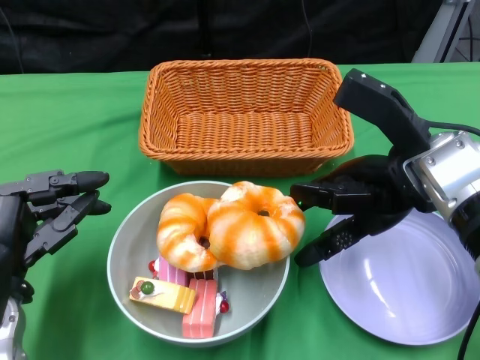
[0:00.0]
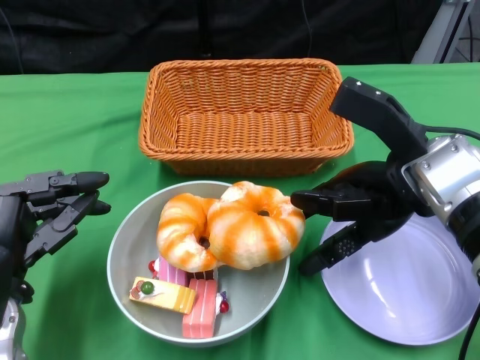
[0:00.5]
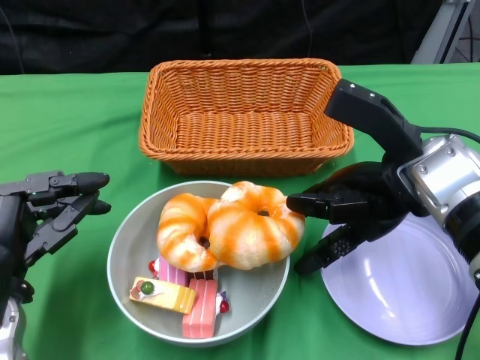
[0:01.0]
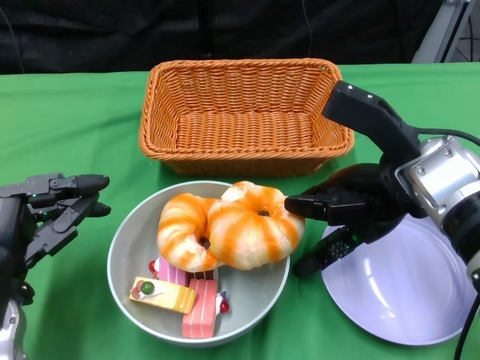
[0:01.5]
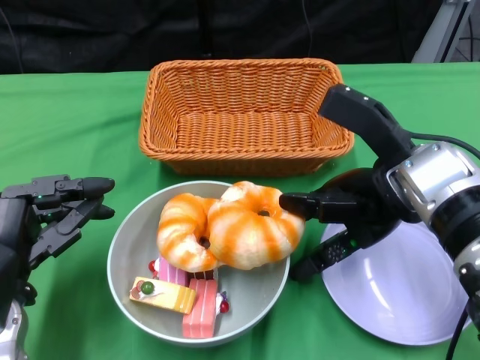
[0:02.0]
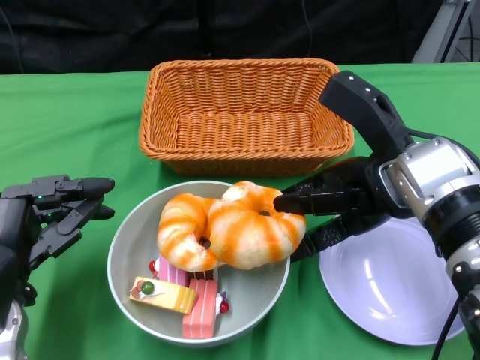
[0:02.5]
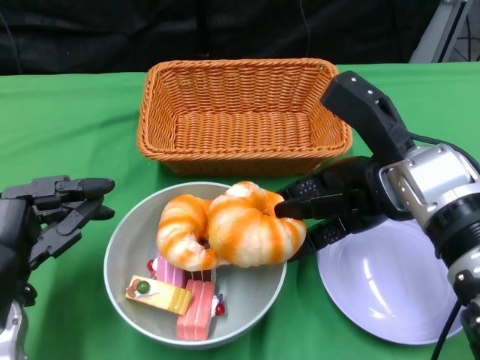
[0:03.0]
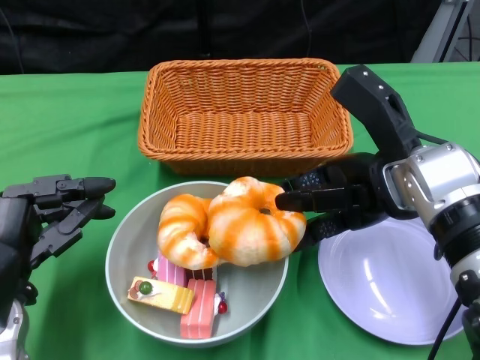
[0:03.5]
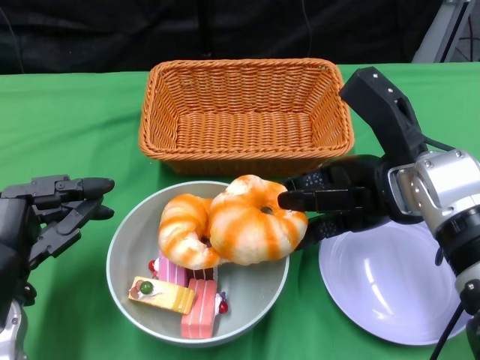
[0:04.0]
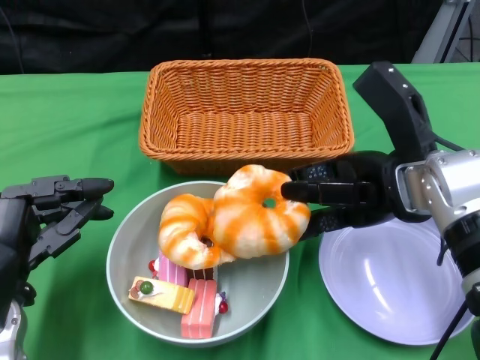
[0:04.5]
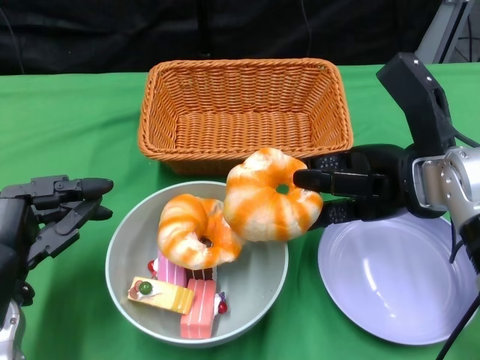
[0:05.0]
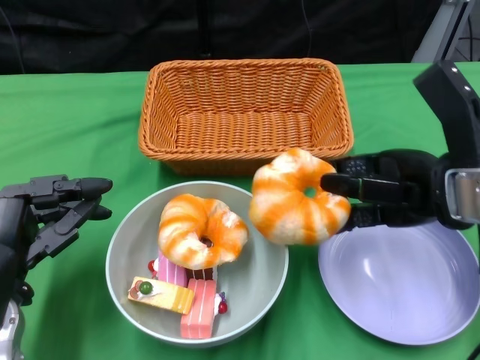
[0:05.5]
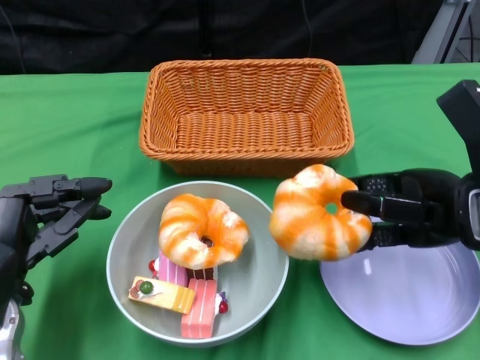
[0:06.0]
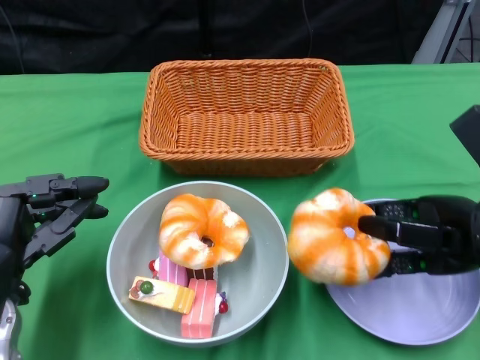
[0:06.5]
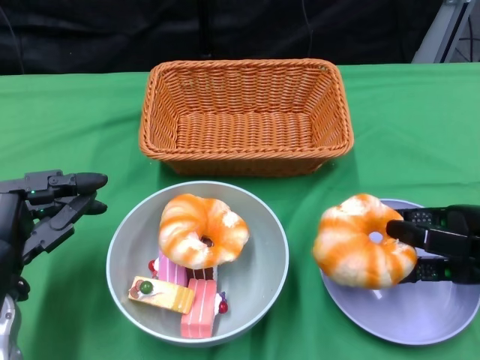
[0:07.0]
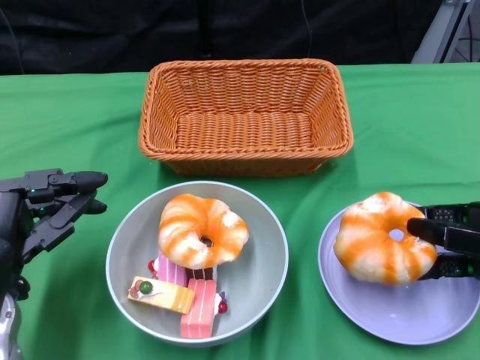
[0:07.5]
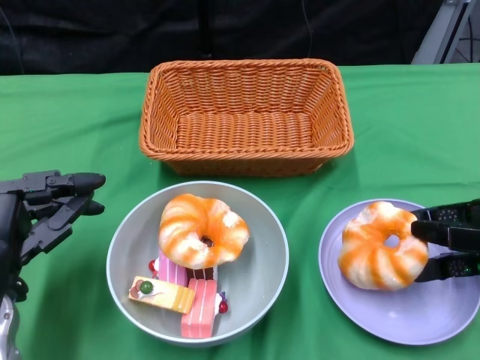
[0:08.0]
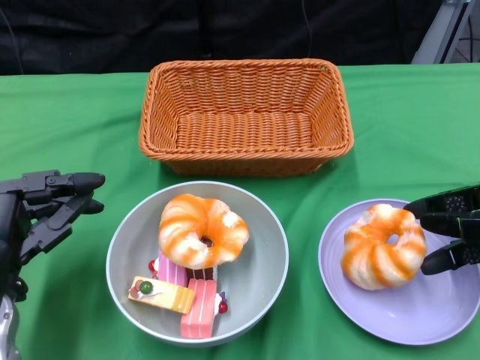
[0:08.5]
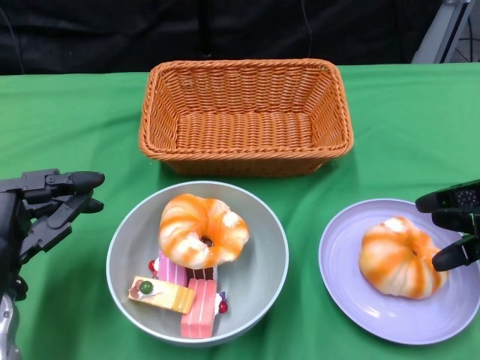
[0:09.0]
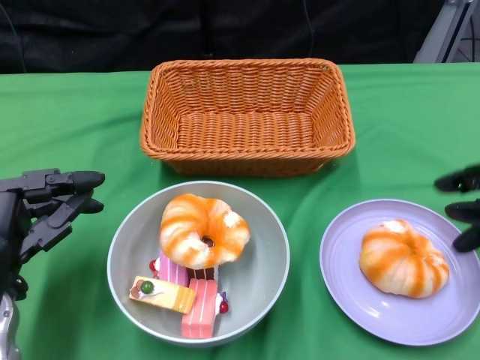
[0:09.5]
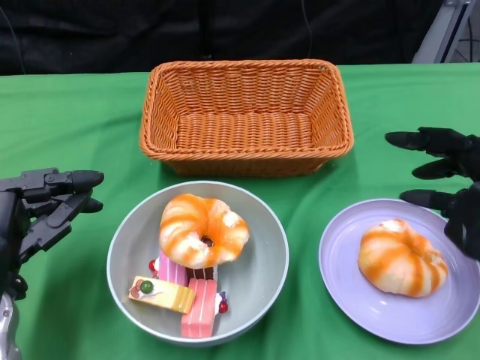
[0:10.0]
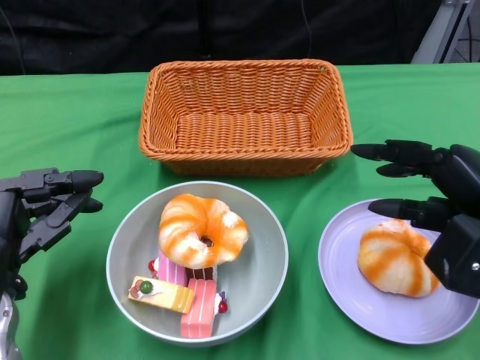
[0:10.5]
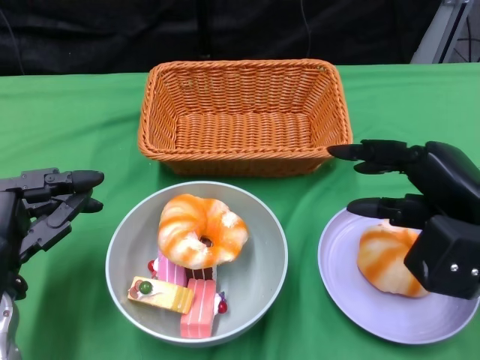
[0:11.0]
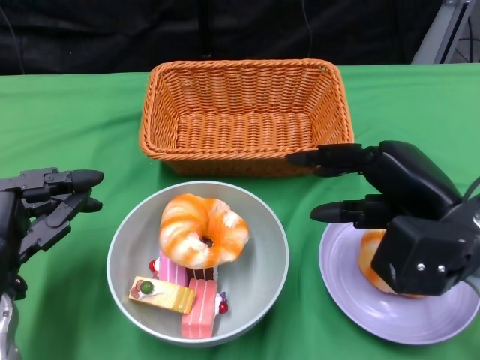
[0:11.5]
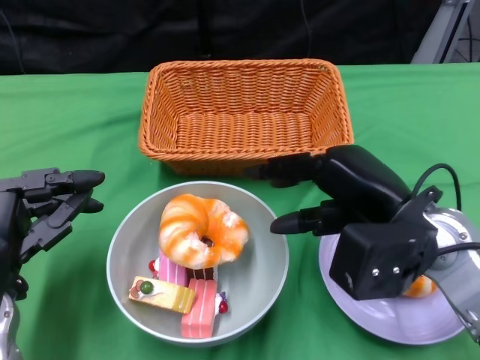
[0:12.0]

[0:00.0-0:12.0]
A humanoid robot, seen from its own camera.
0:00.0 to 0:02.0: The hands stay close to where they were, moving slightly.
0:02.0 to 0:04.0: The hands stay close to where they were, moving slightly.
0:04.0 to 0:06.0: The right hand travels to the right by about 5 cm.
0:06.0 to 0:08.0: The right hand moves to the right, some 5 cm.
0:08.0 to 0:10.0: The right hand changes place by some 5 cm.
0:10.0 to 0:12.0: The right hand goes about 10 cm to the left.

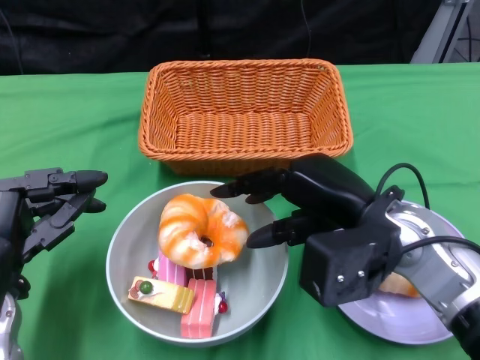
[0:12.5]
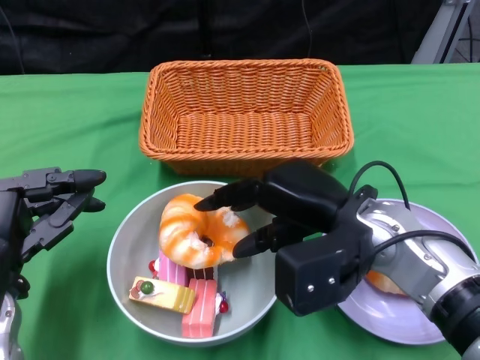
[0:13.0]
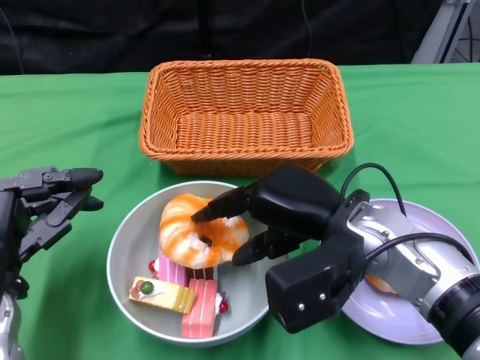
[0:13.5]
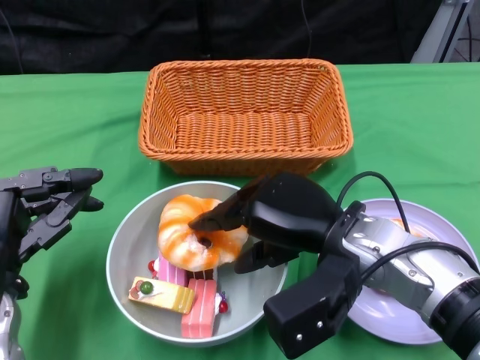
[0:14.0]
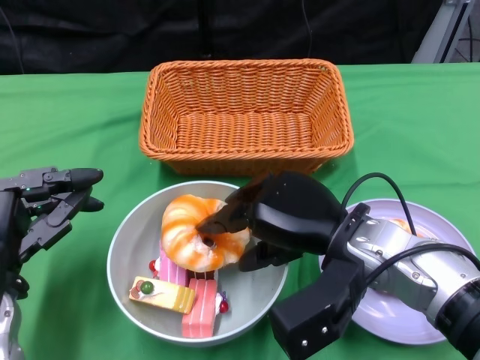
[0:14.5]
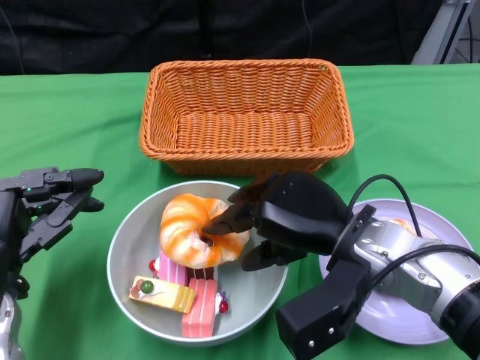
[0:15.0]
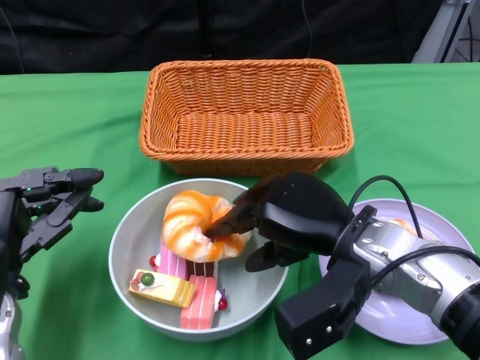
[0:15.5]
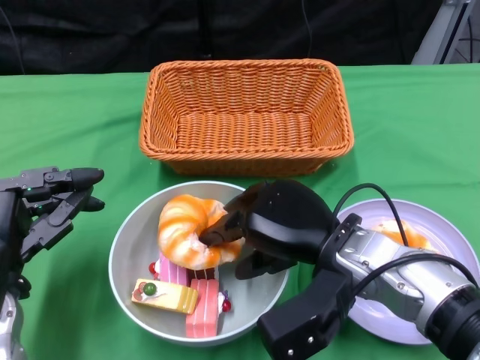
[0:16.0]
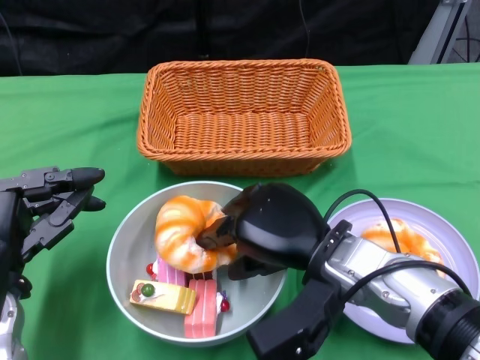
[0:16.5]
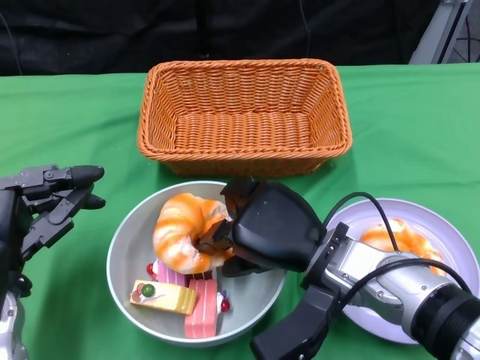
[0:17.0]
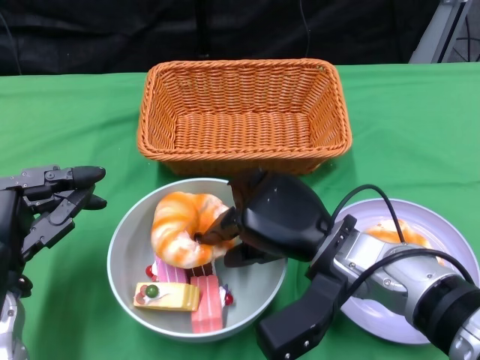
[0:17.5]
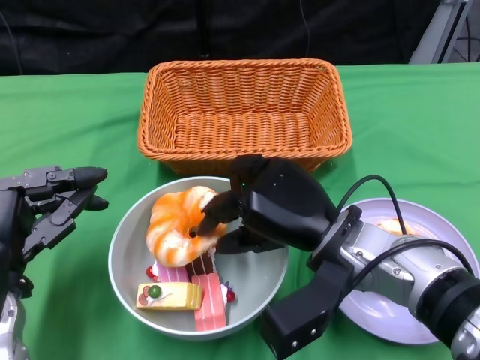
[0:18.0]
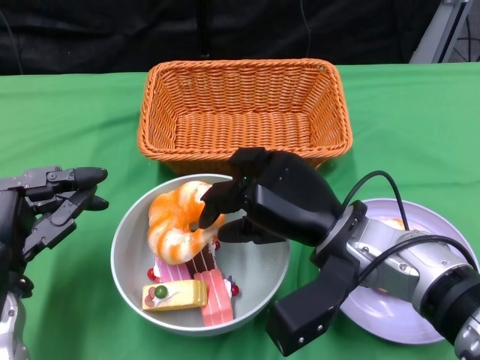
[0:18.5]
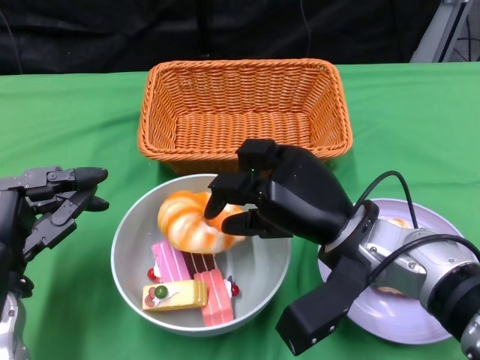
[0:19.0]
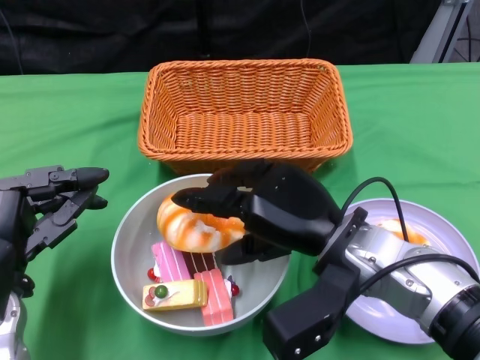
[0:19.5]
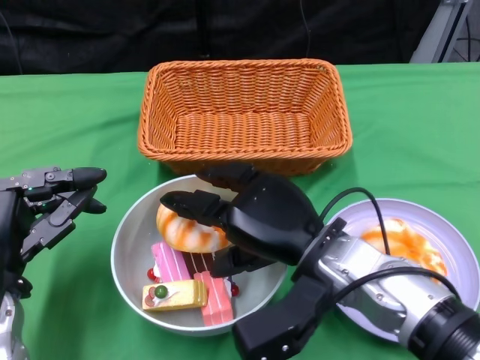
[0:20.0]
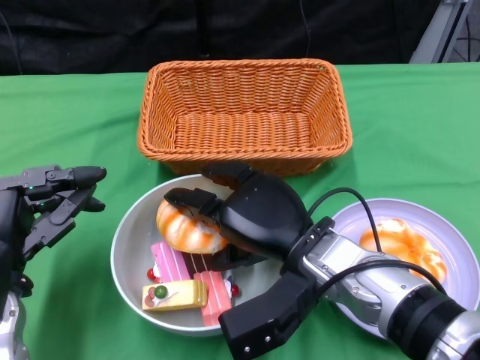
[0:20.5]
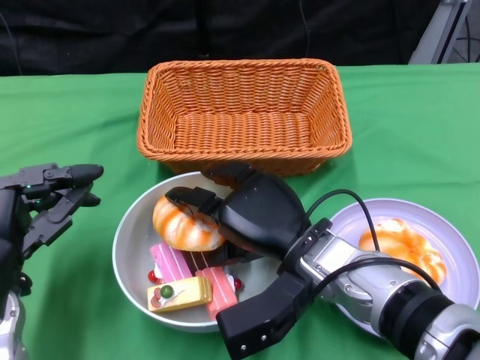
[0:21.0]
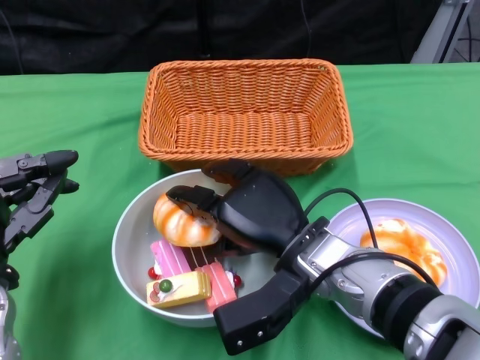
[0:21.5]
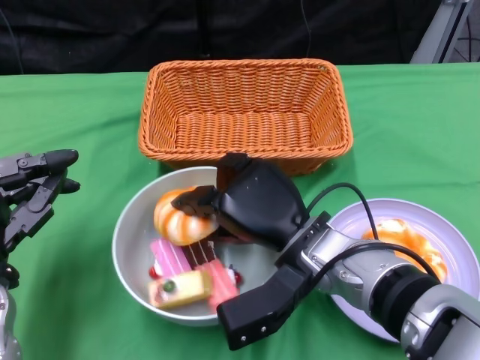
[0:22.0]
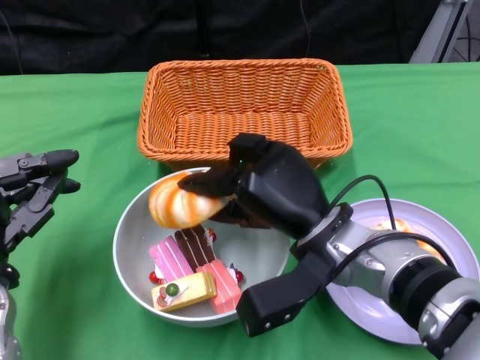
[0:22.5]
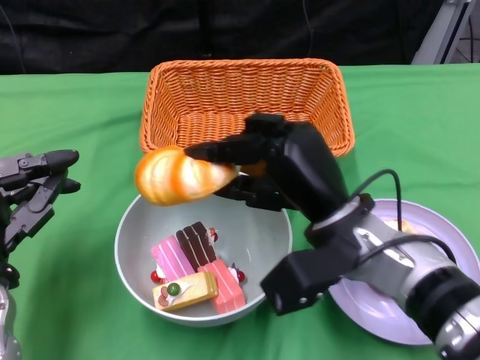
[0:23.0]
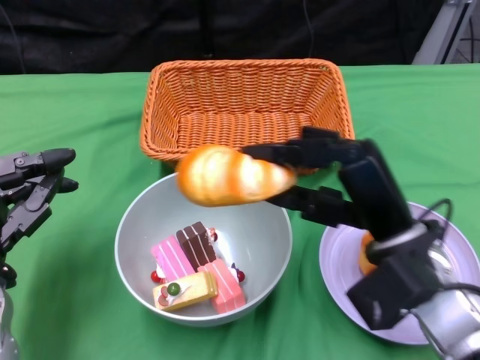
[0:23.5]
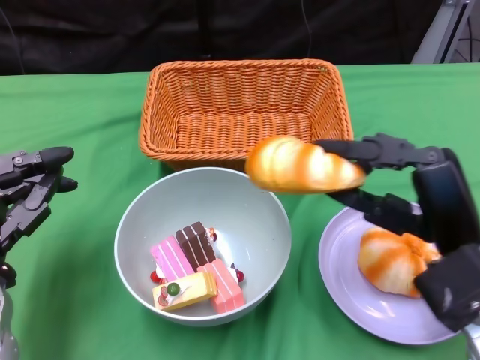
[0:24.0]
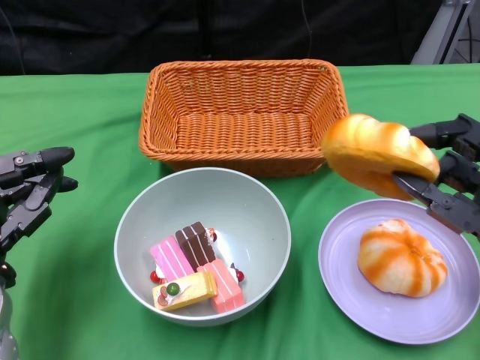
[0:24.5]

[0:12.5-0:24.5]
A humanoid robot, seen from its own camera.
0:14.5 to 0:16.5: There are only small adjustments of the hands.
0:22.5 to 0:24.5: The right hand moves to the right and backward, some 15 cm.

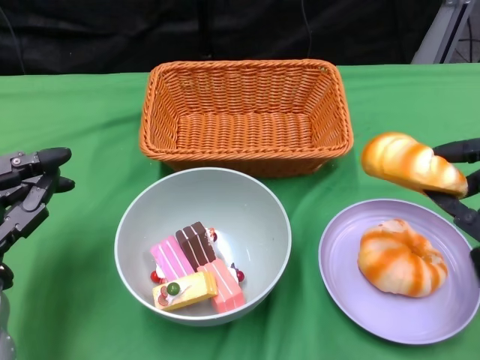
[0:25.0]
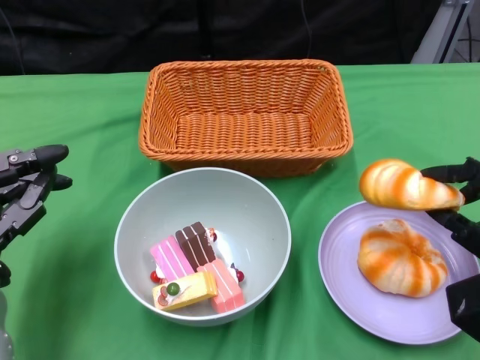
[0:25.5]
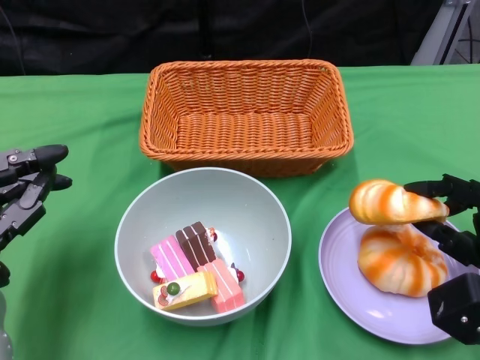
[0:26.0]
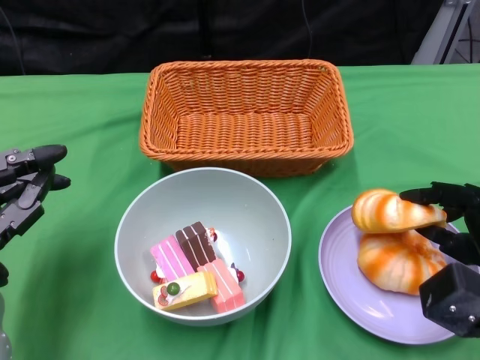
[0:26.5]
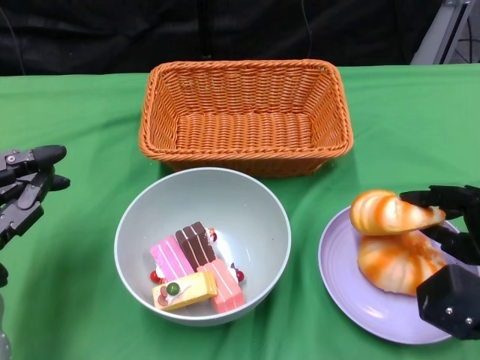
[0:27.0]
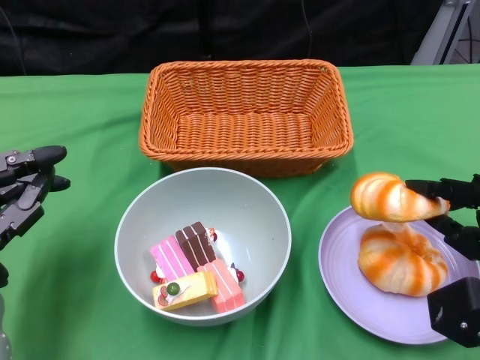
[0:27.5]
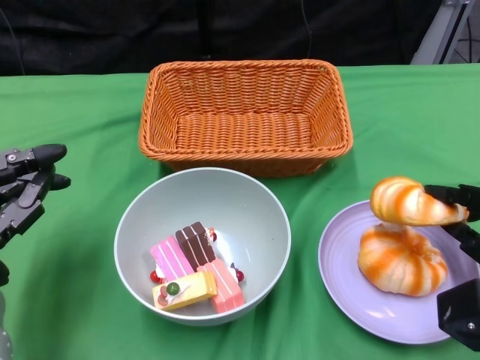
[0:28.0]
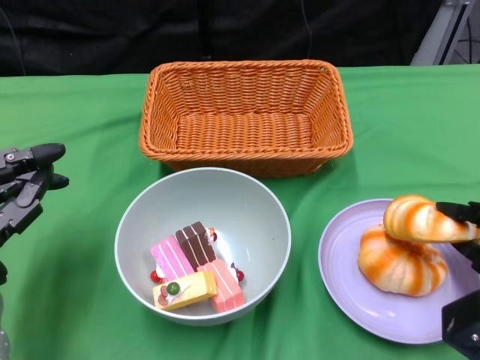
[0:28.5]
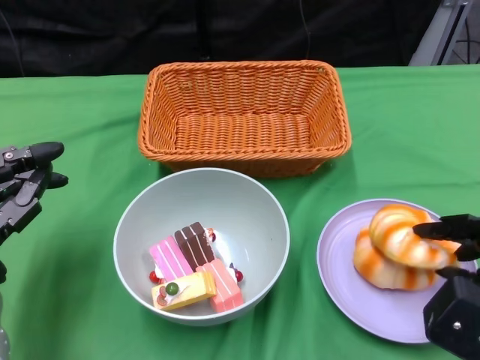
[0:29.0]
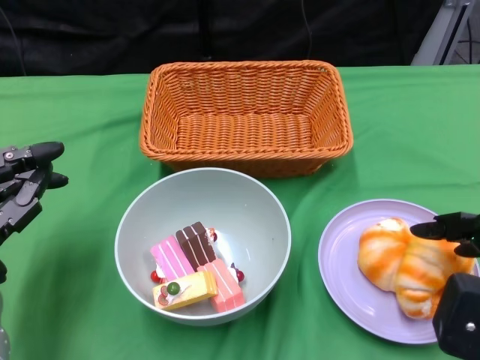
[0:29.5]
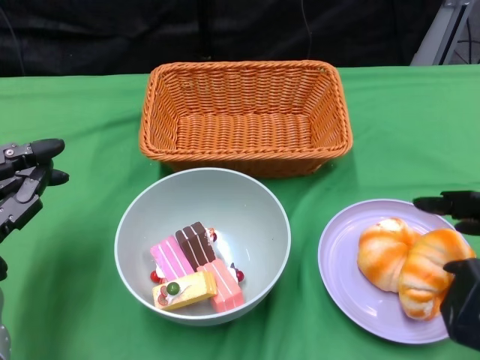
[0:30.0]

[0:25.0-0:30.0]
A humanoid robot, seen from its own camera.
0:27.5 to 0:30.0: The right hand is displaced upward and backward by some 15 cm.
